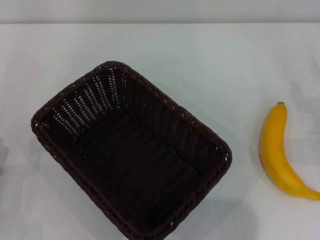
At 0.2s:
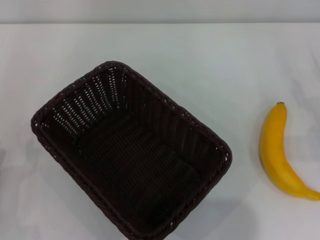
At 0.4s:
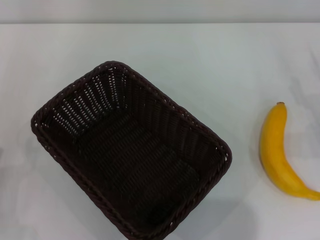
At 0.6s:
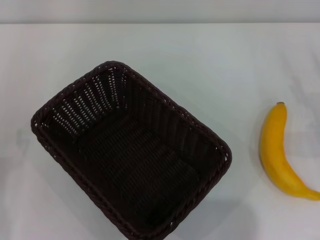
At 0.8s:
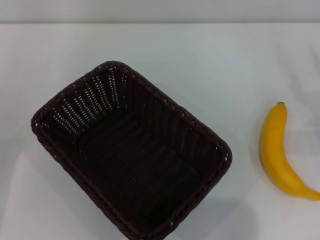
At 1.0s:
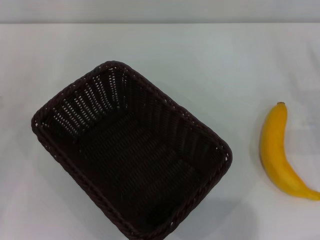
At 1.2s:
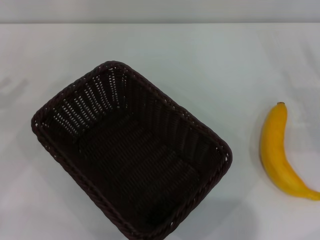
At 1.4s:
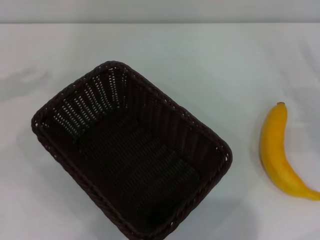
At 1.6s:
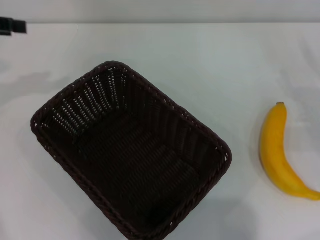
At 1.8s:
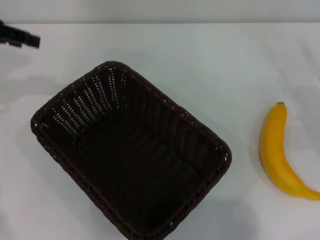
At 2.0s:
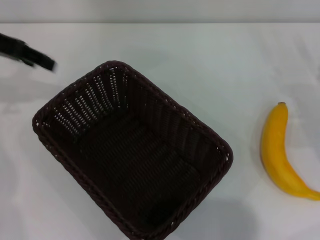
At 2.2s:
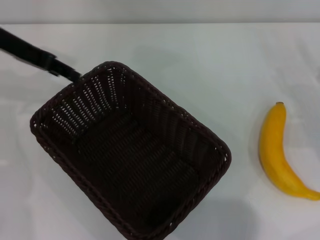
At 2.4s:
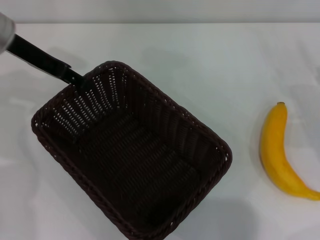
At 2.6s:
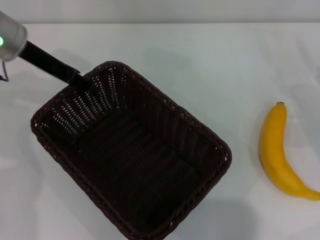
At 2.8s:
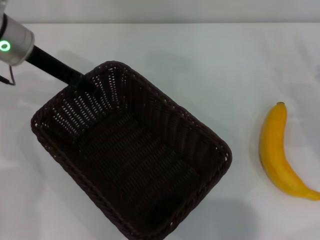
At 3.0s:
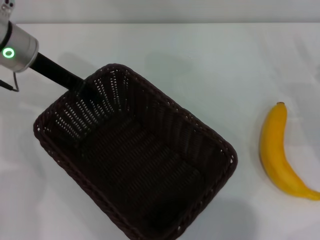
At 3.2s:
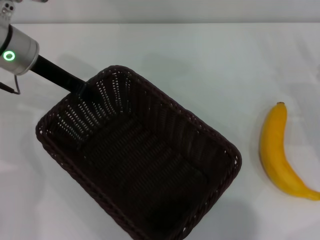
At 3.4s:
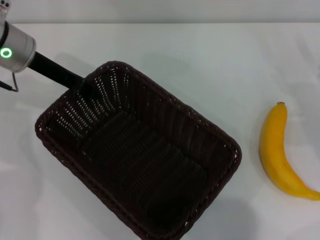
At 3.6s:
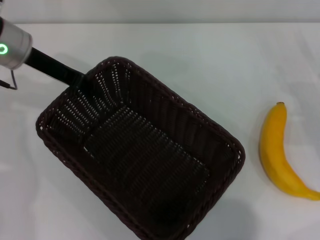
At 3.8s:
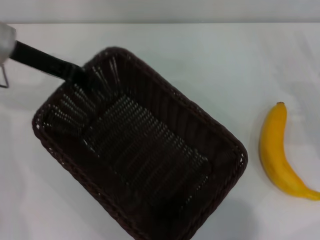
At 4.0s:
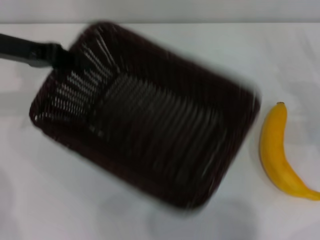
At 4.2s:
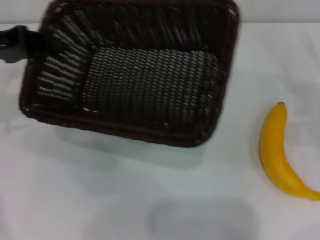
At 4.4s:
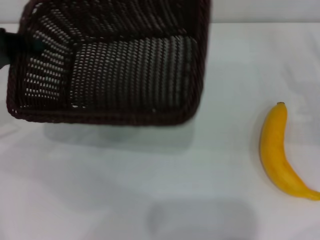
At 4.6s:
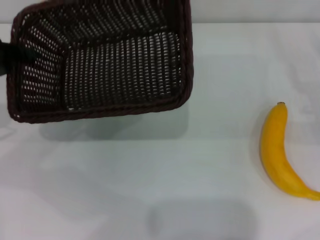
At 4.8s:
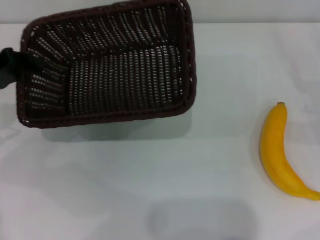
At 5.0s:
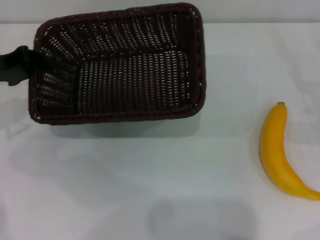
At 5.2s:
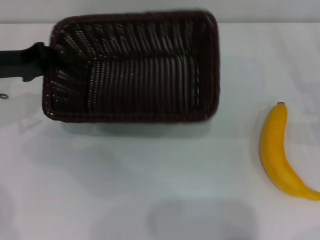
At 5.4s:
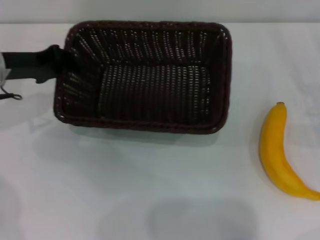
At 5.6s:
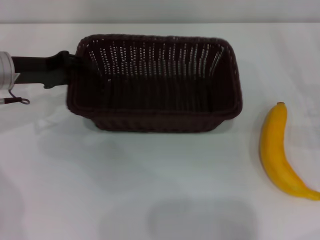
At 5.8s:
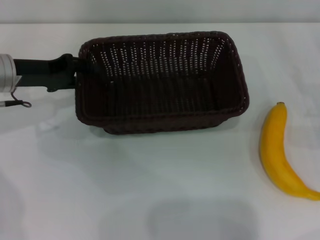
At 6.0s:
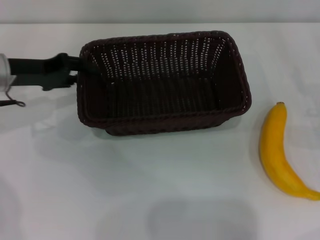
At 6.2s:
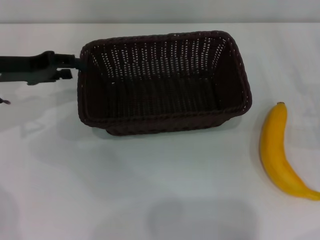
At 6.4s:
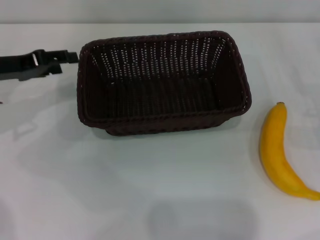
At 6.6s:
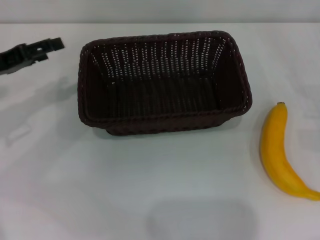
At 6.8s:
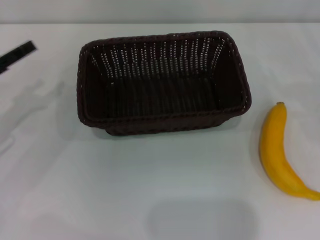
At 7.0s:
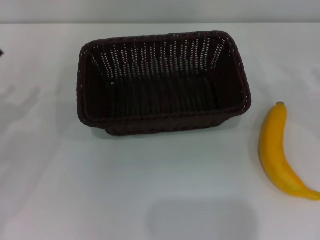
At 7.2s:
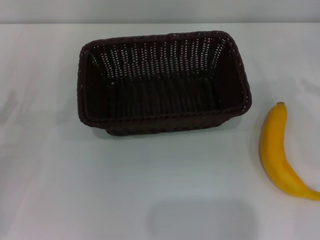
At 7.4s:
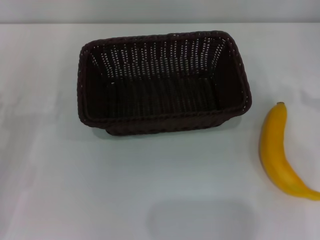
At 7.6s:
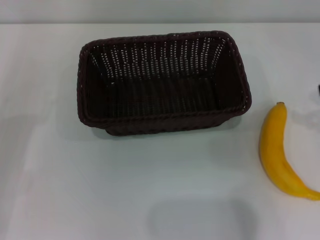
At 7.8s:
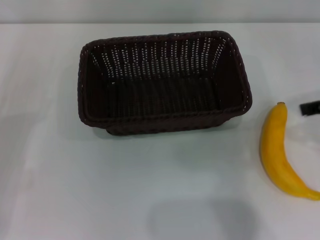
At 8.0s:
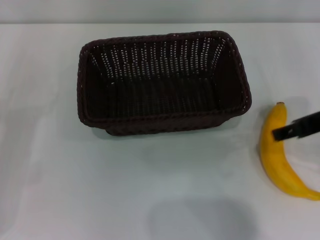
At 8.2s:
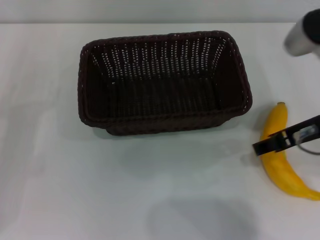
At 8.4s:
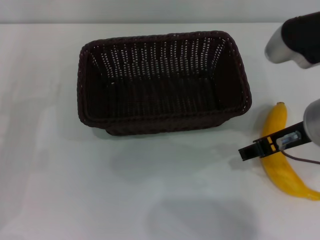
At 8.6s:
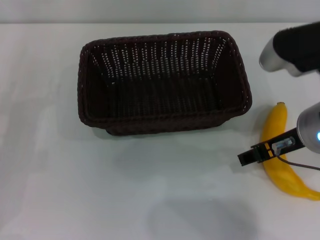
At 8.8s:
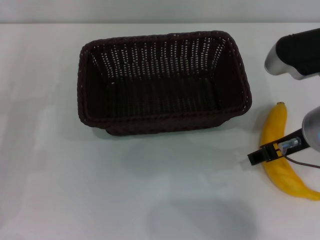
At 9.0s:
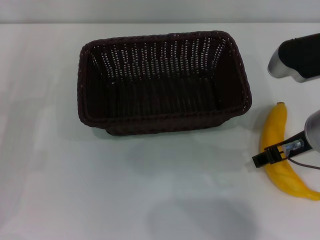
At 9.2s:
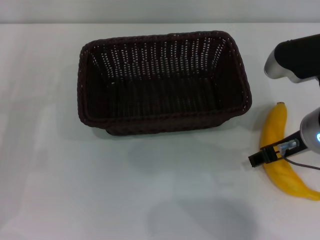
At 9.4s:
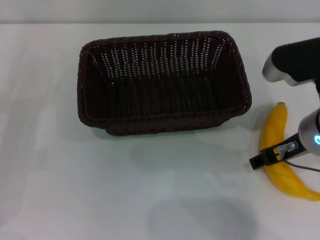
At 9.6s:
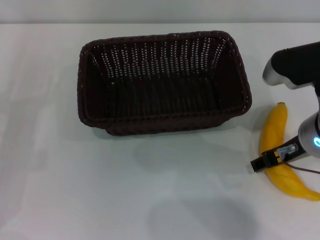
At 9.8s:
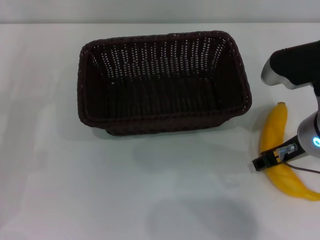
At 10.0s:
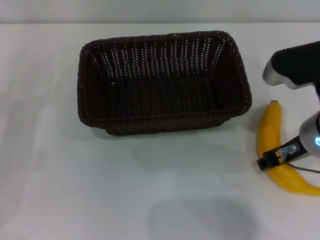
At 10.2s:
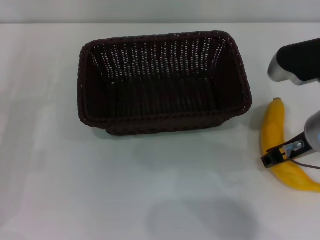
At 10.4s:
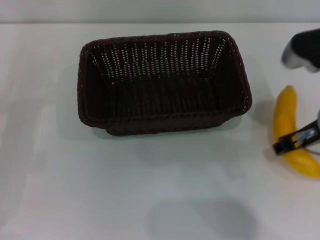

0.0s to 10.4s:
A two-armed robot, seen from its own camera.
Step, 0.0s to 3.8s: Pick up the dark basket with the left gripper.
Step, 4.0s to 6.4s: Place the dark basket in the center of view with the left gripper.
0.0s to 1.4s: The left gripper goes about 30 cm upward, forward and to the left.
1.4s to 3.0s: The left gripper is displaced to the right by approximately 15 cm, and closes up.
3.0s to 4.4s: The left gripper travels to the left and backward by about 15 cm, and closes up.
4.4s to 6.0s: The left gripper heads to the right, covering about 5 cm, and opens.
6.0s to 7.4s: The left gripper shifts some 20 cm backward, to the left and downward, and opens up.
7.4s to 9.0s: The right gripper moves to the left, roughly 15 cm.
9.0s to 10.4s: The right gripper closes up.

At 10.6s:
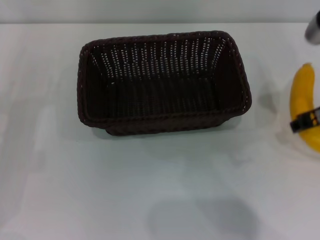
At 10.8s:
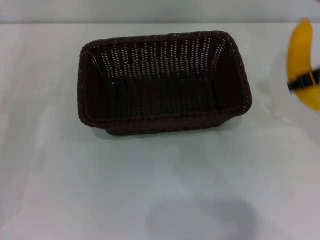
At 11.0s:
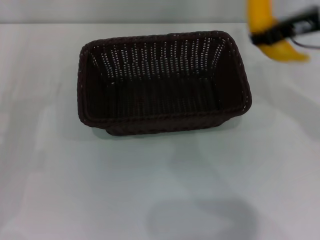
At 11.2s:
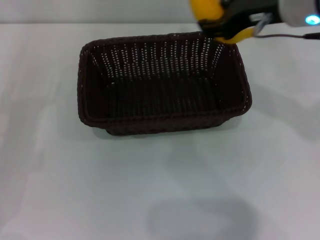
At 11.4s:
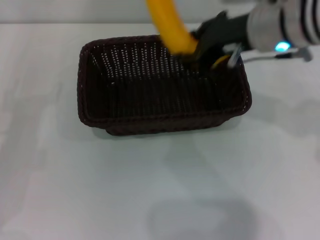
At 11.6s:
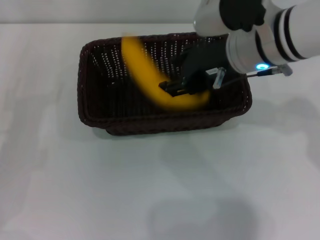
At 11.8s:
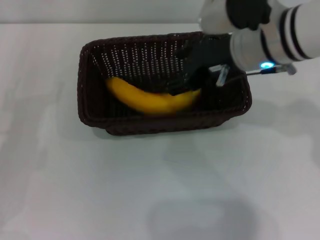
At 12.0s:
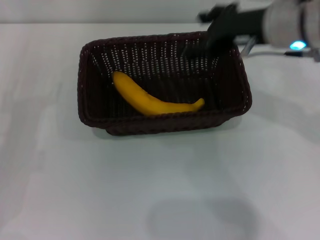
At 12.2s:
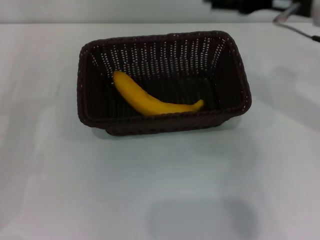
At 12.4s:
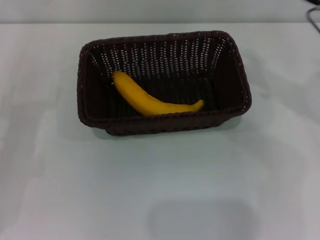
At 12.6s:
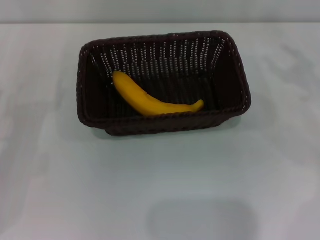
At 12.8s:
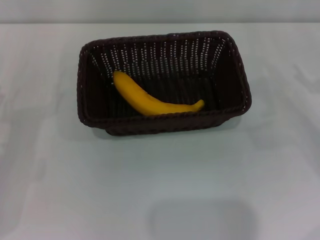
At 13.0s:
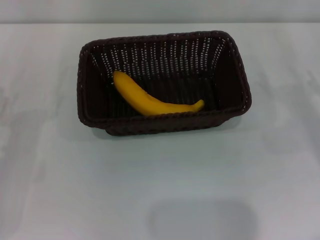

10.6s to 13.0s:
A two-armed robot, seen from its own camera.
Step, 10.8s to 11.8s: Place the banana into the dark basket with the right gripper.
10.6s to 11.8s: The right gripper shifts some 10 cm to the left.
11.8s to 13.0s: The right gripper moves to the right and downward, roughly 30 cm, and opens.

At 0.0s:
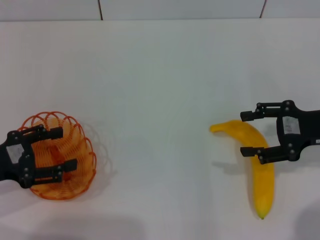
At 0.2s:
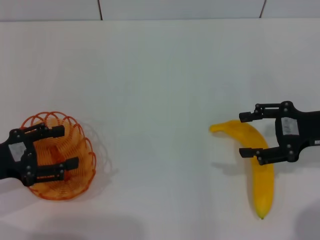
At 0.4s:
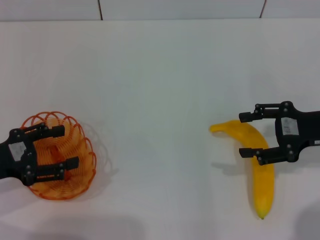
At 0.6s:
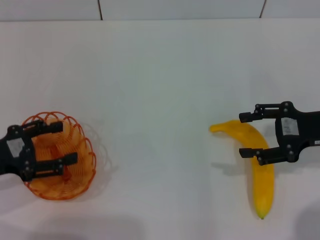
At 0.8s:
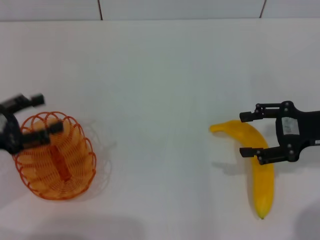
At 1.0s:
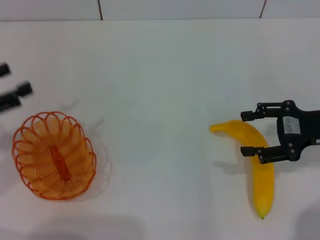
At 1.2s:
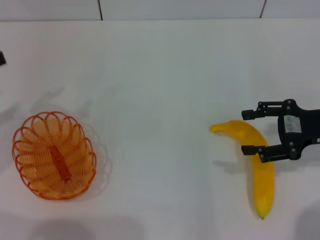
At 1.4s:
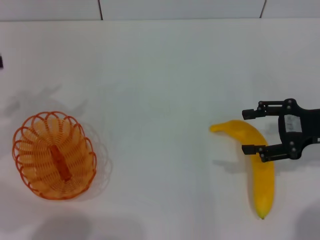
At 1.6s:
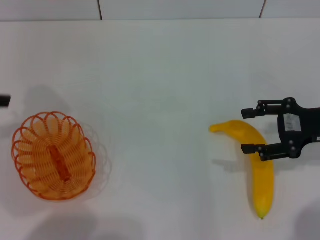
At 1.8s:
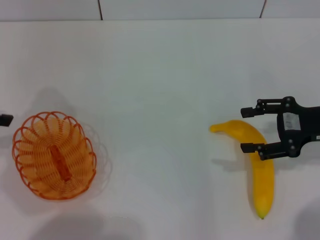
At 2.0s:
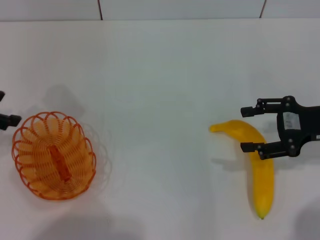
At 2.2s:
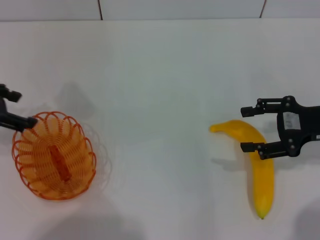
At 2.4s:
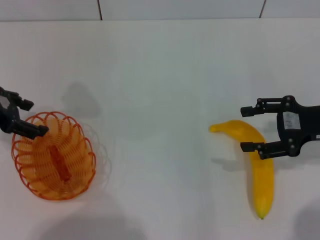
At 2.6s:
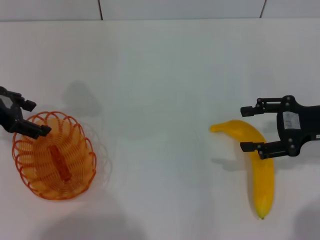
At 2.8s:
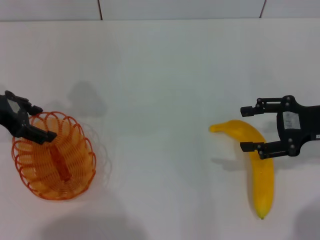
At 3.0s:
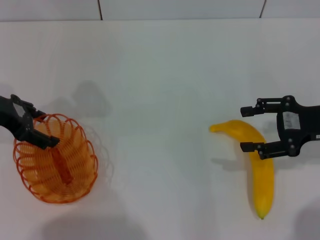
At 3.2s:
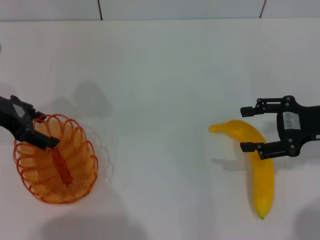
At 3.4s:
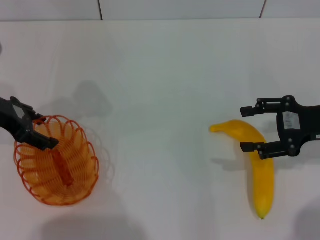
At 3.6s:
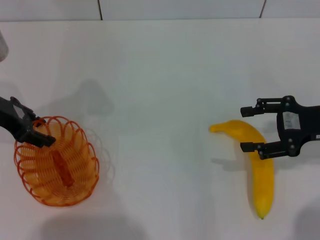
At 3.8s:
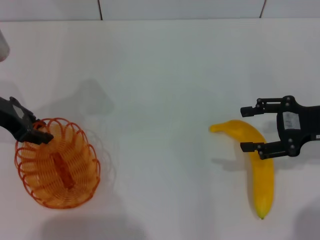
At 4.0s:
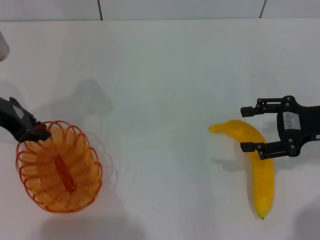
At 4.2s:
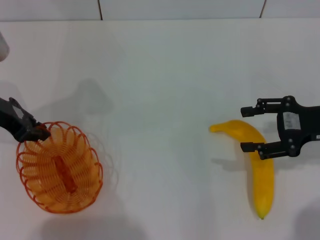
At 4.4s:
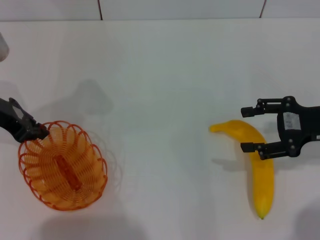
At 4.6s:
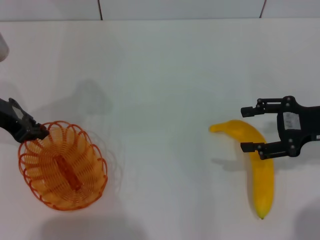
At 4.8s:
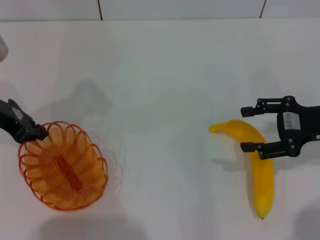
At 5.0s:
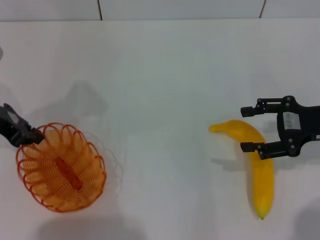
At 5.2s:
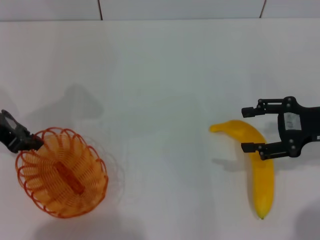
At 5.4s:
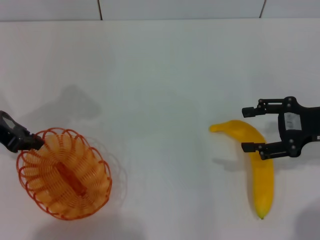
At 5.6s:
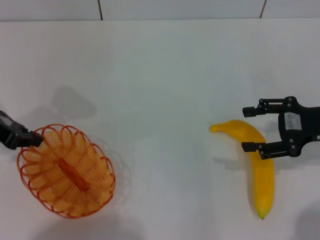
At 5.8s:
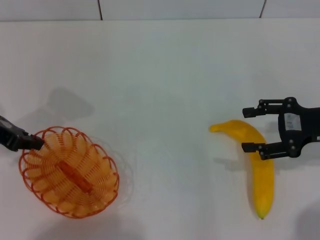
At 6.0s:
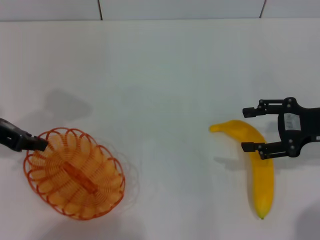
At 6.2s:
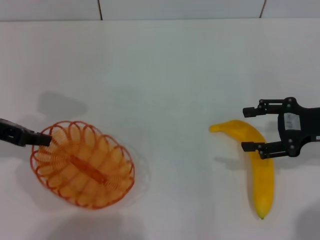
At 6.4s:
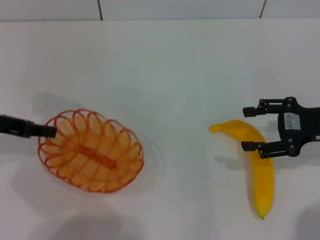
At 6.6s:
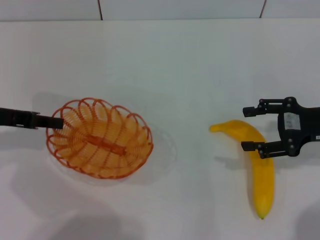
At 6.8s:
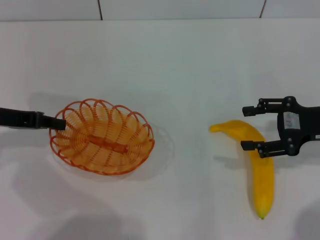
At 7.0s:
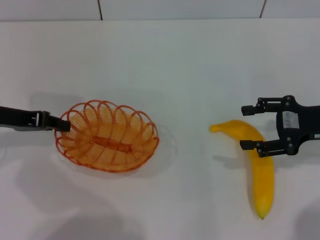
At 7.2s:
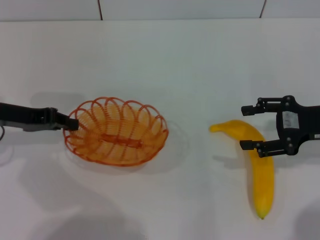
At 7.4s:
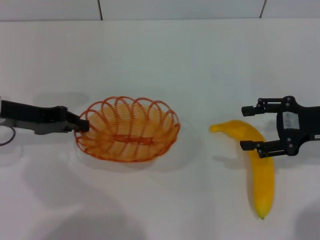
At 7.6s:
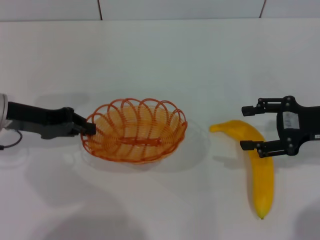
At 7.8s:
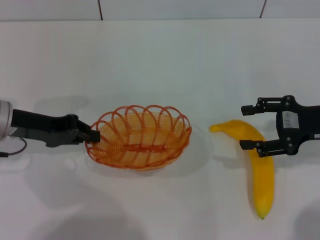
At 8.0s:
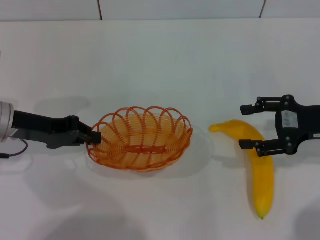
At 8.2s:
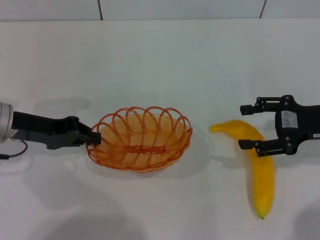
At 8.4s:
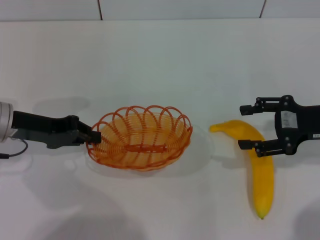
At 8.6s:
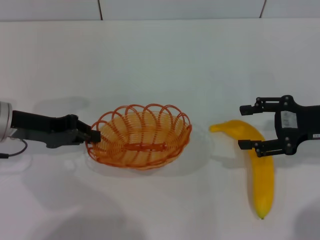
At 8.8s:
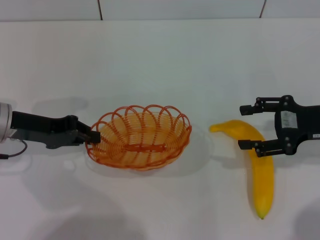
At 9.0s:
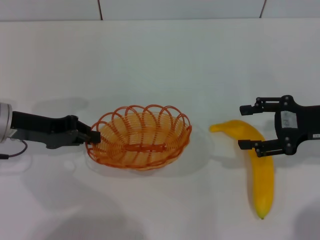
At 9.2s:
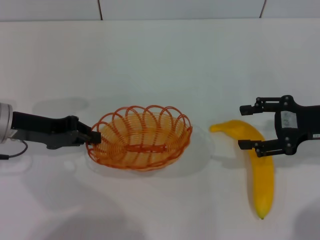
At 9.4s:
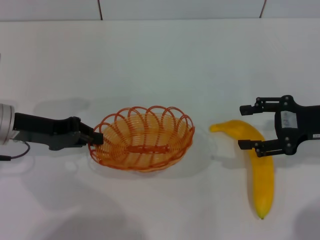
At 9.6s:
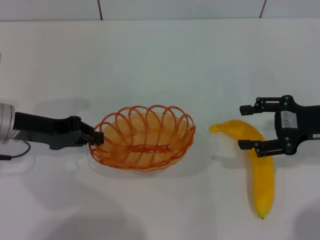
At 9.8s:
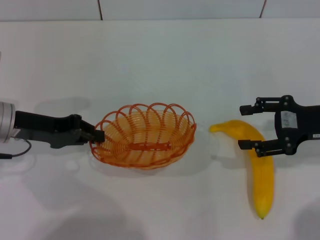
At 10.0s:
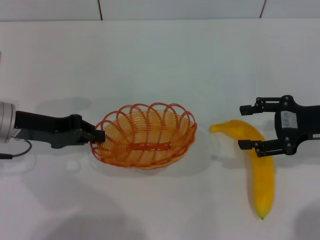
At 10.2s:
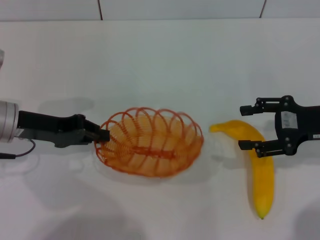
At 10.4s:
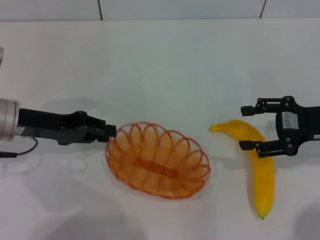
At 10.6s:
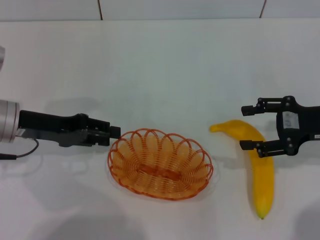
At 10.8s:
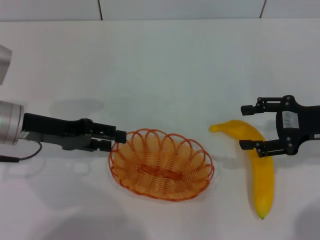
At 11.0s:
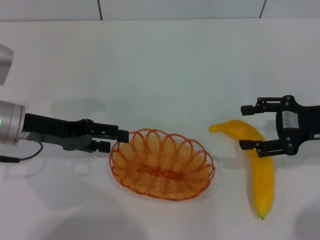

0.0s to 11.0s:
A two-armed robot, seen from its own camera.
Step, 0.0s to 6.2s: Pick up the basket with the left gripper.
0.0s to 1.6s: The left gripper heads upward, forward and to the left, covering some 15 cm.
1.6s to 3.2s: The left gripper shifts roughly 10 cm to the right.
3.2s to 4.8s: The left gripper closes up.
6.2s to 7.8s: The left gripper moves some 5 cm.
7.8s to 9.4s: Both grippers stay about where they are.
9.4s to 11.0s: The left gripper opens.
